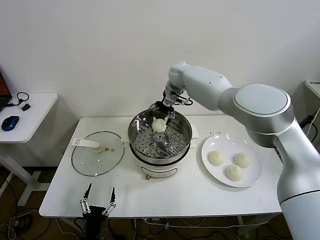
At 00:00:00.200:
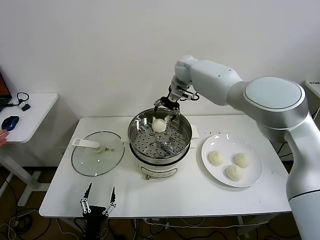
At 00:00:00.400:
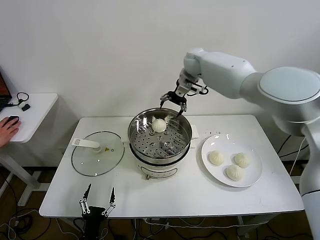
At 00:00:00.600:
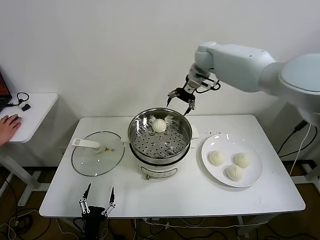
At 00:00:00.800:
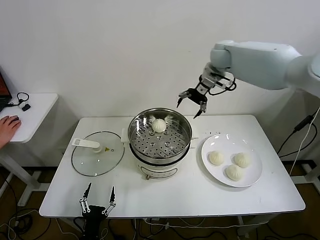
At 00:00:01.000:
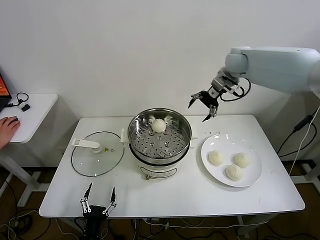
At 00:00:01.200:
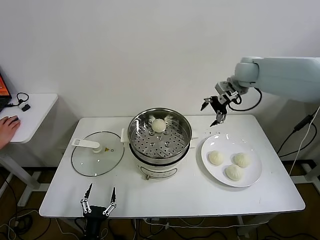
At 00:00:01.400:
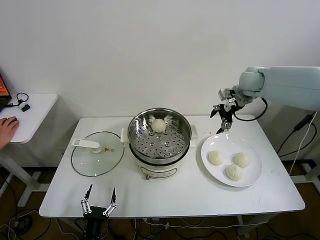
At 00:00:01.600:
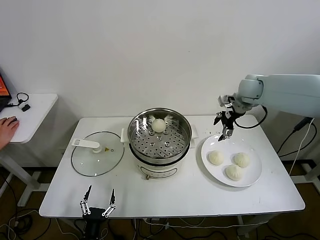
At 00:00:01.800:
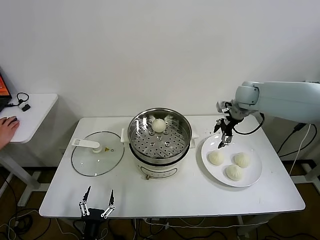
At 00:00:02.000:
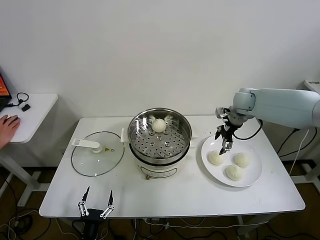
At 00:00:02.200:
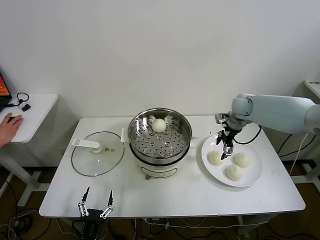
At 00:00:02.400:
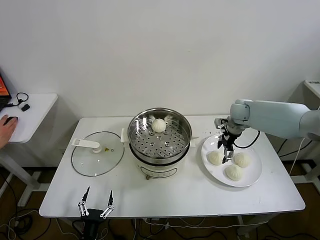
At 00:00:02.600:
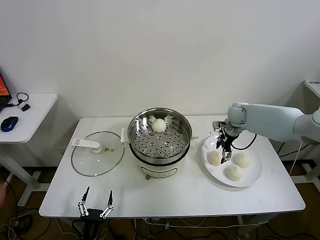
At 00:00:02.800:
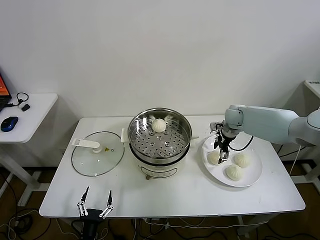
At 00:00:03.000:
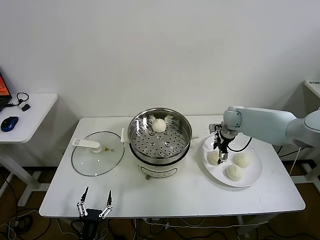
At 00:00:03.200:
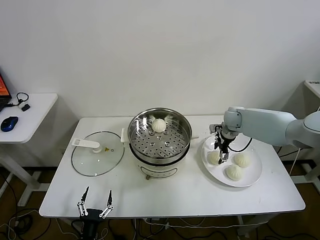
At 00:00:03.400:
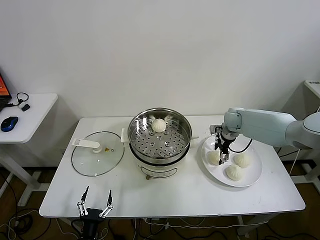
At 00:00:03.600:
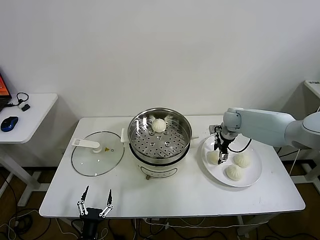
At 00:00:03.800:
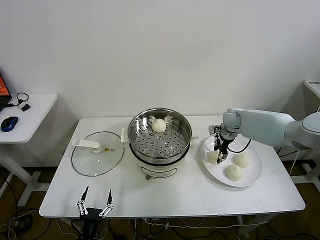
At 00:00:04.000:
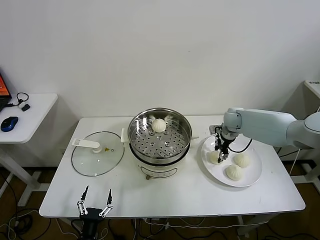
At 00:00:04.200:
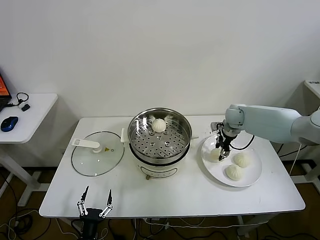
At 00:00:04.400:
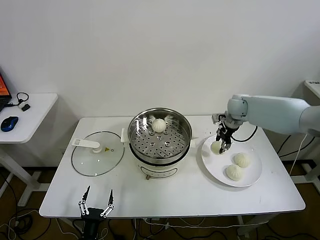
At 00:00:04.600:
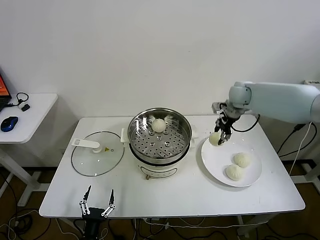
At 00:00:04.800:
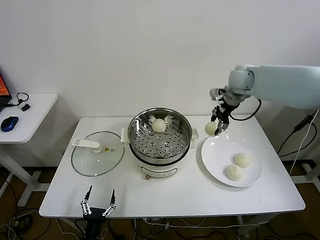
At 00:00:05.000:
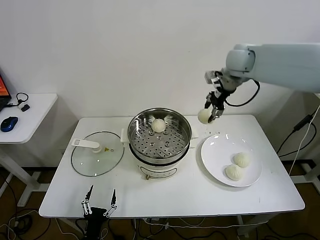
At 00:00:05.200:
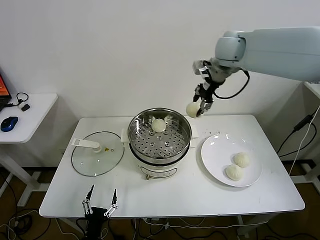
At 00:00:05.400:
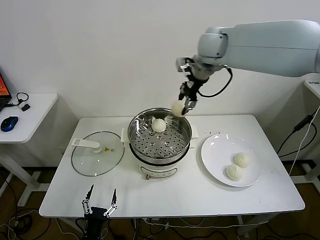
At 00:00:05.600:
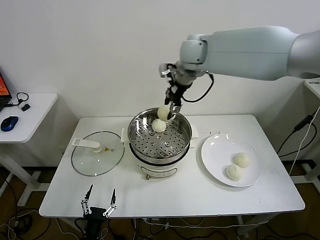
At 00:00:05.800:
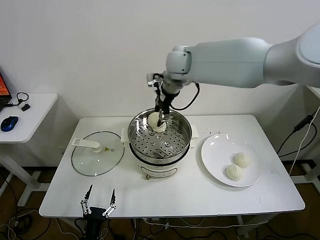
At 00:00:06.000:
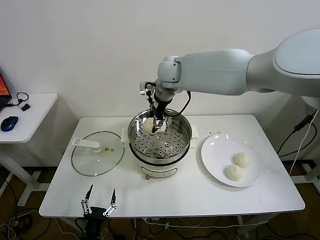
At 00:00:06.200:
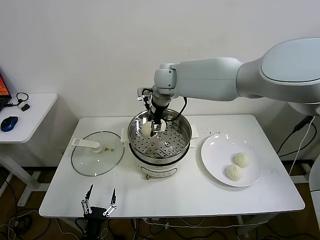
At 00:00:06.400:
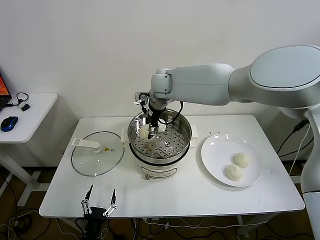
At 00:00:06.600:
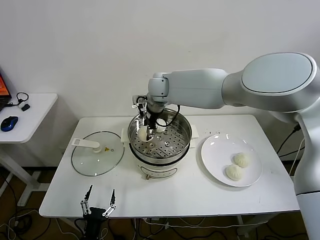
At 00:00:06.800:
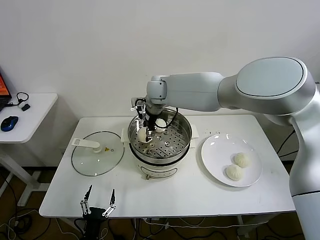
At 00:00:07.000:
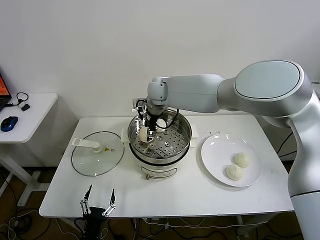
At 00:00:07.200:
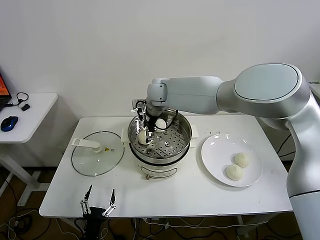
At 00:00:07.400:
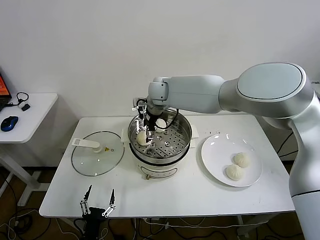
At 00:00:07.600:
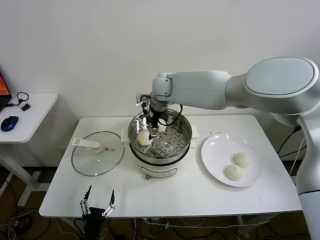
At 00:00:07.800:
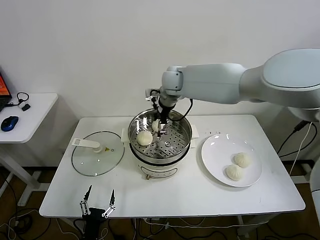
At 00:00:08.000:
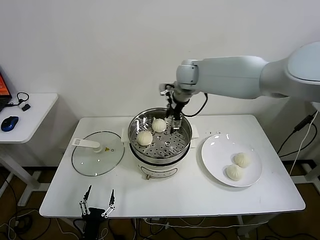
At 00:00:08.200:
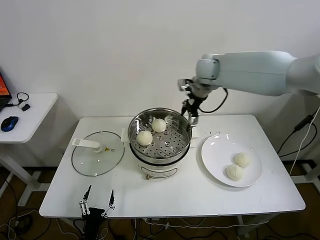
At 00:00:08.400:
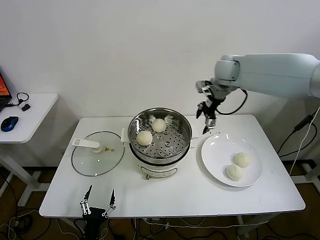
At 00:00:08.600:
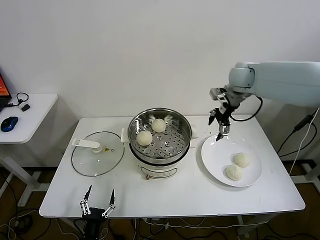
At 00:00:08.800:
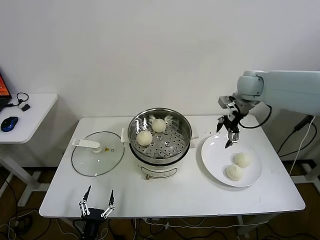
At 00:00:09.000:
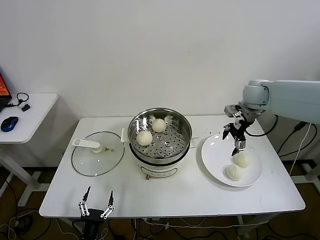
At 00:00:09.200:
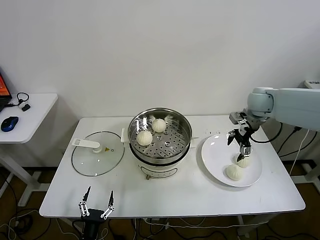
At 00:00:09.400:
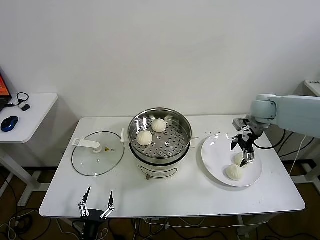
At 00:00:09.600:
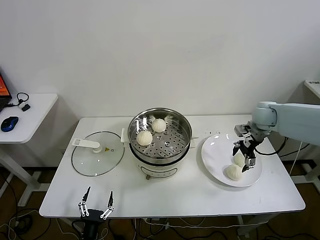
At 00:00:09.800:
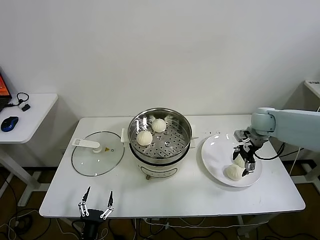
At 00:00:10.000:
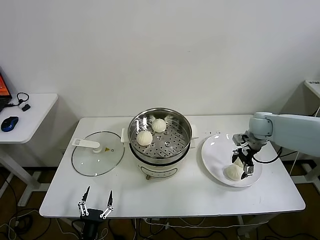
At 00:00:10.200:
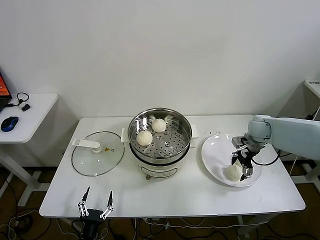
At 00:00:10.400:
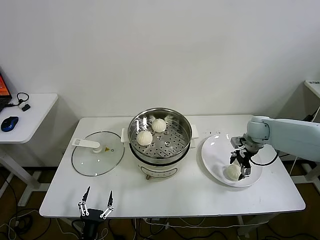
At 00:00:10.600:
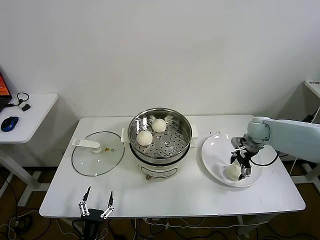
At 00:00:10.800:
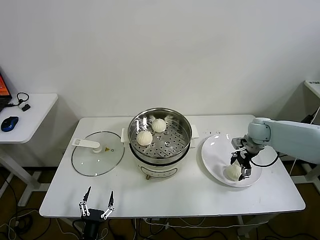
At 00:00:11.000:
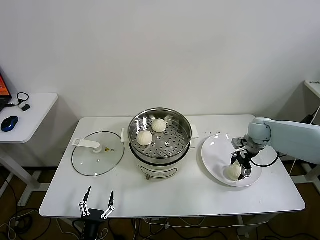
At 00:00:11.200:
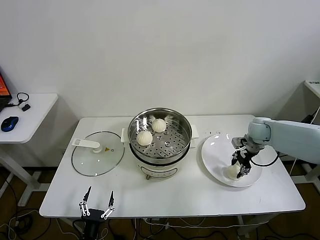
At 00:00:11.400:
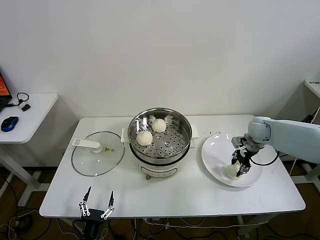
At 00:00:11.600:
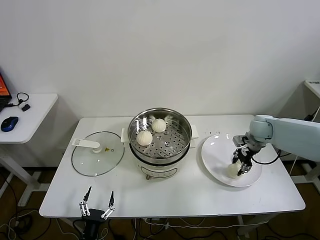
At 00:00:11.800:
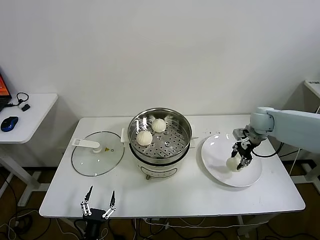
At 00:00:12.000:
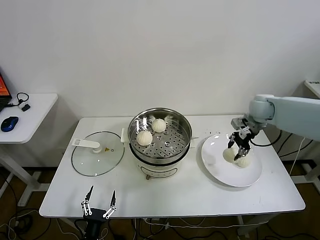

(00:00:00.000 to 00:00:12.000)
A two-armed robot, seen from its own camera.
Task of the whole recording: take steamed baozi put them in steamer.
Step, 00:00:00.000 - 00:00:03.800: Grasp the baozi in the plate with right gripper.
Step, 00:00:04.000 - 00:00:07.400: Place the baozi on the steamer with right gripper.
Step, 00:00:07.600 - 00:00:11.200: Grasp the baozi in the plate with right gripper.
00:00:00.000 - 00:00:01.600: The right gripper goes approximately 25 cm to the right and backward.
00:00:01.600 - 00:00:03.000: The right gripper is displaced downward by some 15 cm.
00:00:03.000 - 00:00:04.400: The right gripper goes about 10 cm upward, and closes up.
00:00:04.400 - 00:00:06.000: The right gripper is displaced to the left and upward by some 30 cm.
00:00:06.000 - 00:00:07.600: The right gripper is displaced downward by some 5 cm, and opens its fingers.
00:00:07.600 - 00:00:09.000: The right gripper shifts approximately 30 cm to the right.
00:00:09.000 - 00:00:10.400: The right gripper is displaced downward by approximately 15 cm.
00:00:10.400 - 00:00:12.000: The right gripper travels upward by some 10 cm, and closes.

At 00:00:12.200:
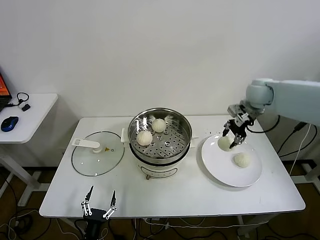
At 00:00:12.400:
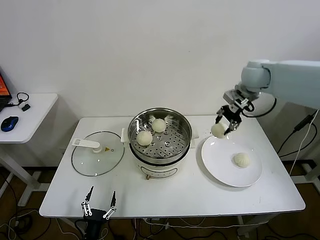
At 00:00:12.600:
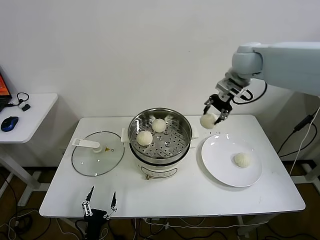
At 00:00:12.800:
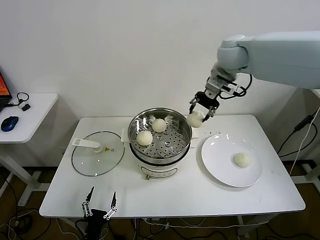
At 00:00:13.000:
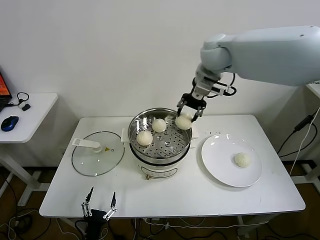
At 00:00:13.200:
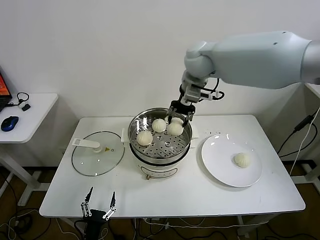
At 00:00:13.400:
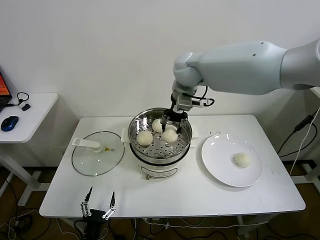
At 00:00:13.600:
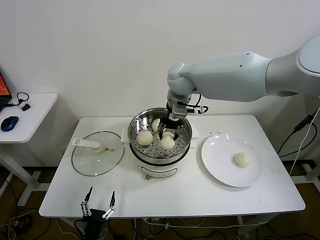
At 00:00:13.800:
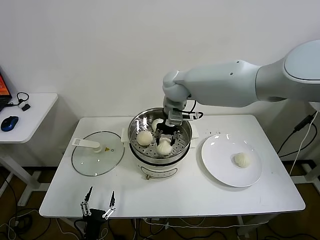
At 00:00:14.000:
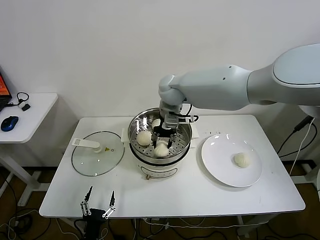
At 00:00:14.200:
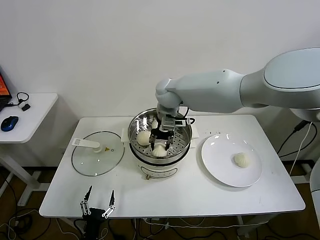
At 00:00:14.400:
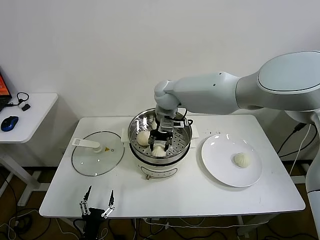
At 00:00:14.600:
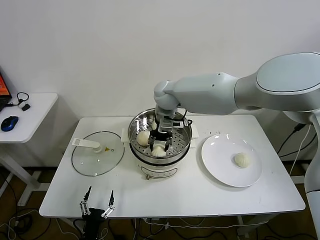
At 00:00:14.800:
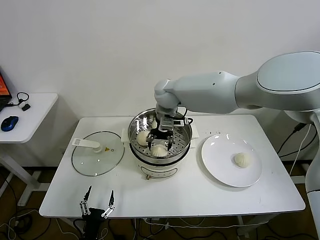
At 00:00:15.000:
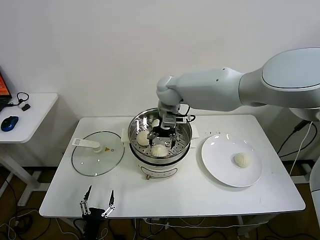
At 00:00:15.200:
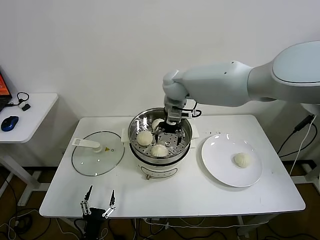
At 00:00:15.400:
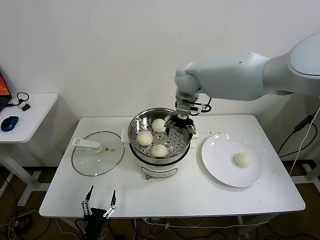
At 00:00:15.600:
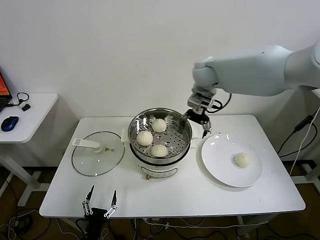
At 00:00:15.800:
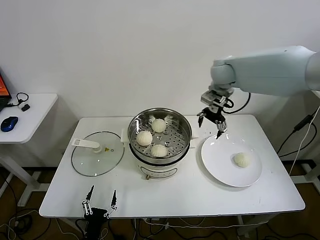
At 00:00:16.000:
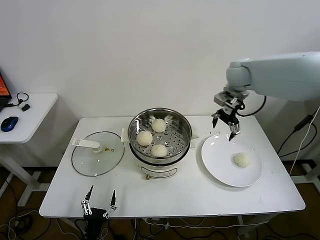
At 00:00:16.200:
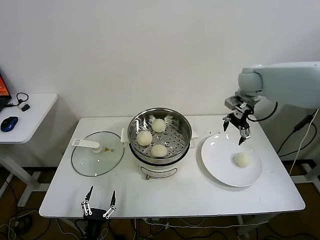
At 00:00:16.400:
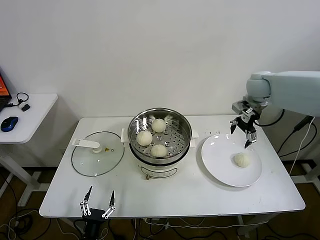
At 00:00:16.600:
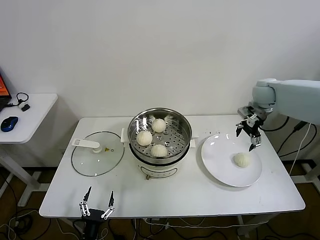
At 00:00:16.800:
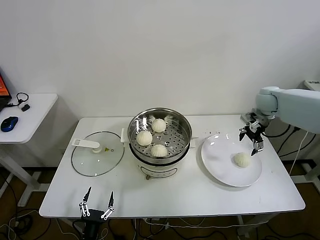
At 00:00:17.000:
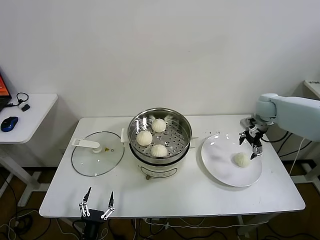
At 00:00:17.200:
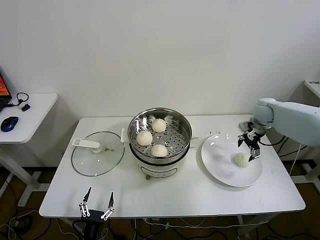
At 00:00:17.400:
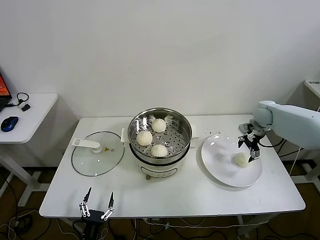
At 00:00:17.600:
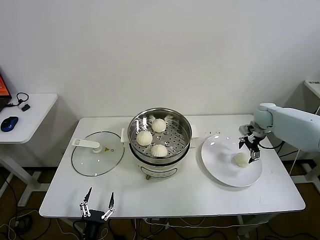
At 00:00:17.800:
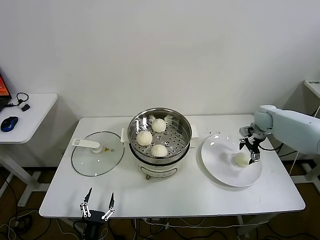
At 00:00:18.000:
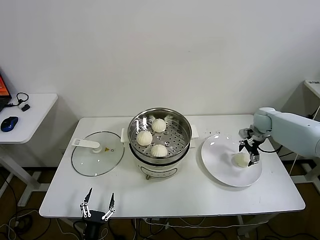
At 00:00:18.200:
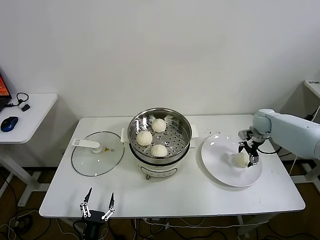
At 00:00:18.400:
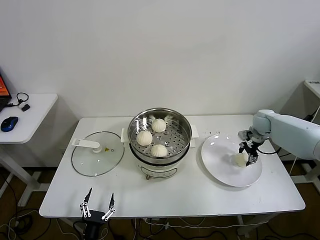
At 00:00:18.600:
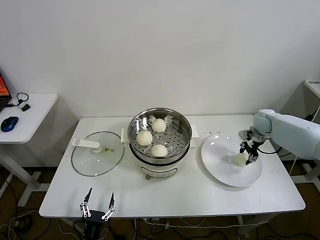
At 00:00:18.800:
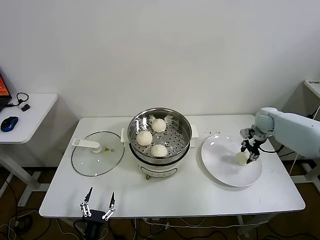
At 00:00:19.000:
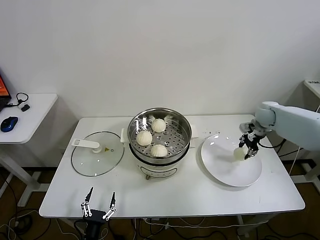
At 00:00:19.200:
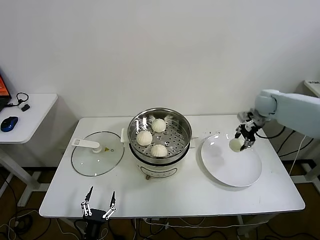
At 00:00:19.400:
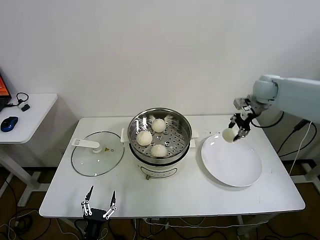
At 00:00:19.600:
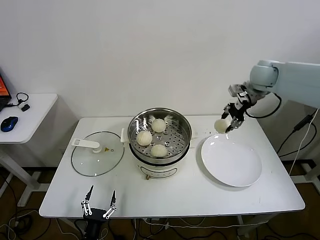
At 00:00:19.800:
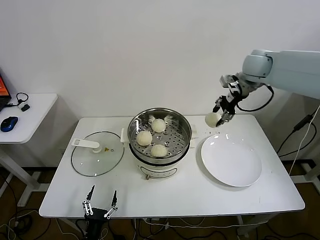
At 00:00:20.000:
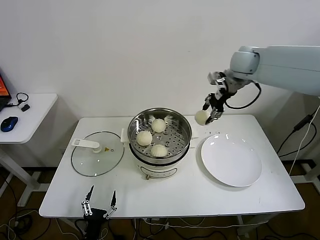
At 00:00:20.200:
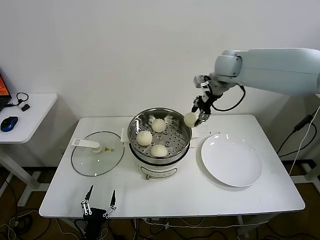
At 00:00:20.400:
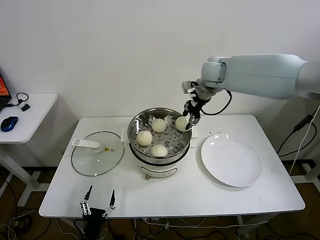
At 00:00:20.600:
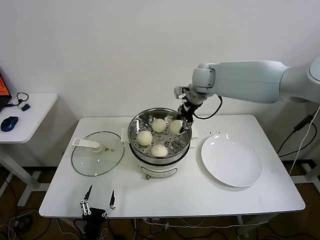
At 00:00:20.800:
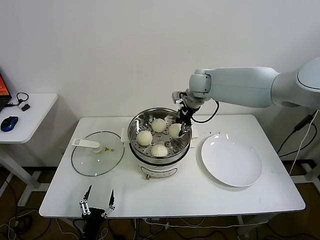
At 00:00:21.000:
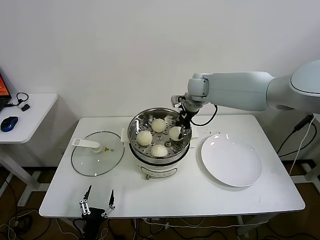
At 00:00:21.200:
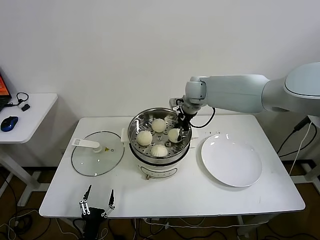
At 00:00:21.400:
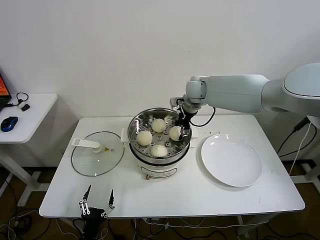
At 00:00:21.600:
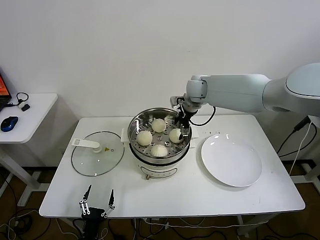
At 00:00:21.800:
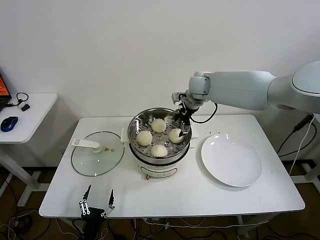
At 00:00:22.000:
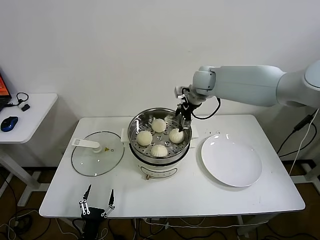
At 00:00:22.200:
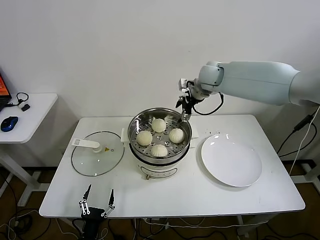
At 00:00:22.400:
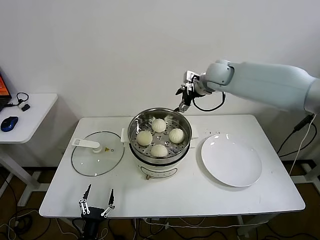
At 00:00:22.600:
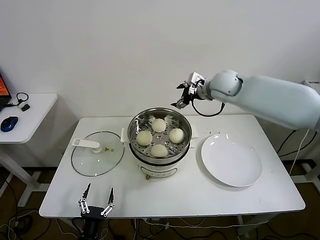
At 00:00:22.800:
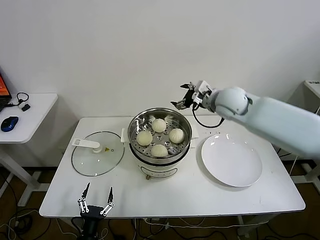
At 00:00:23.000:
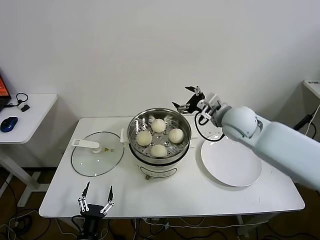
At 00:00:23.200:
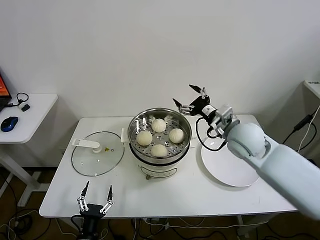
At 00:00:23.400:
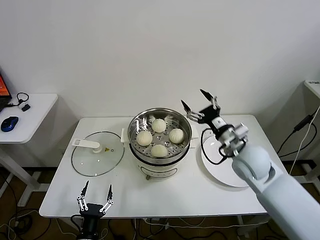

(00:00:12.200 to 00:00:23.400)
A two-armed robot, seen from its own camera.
Task of the whole recording: take steamed baozi put them in steamer.
Step, 00:00:12.200 - 00:00:14.800: Place the baozi on the steamer with right gripper.
Step, 00:00:15.000 - 00:00:18.600: Grasp the baozi in the plate with right gripper.
Step, 00:00:18.800 - 00:00:21.600: Place the baozi on the steamer with right gripper.
00:00:12.200 - 00:00:13.800: The right gripper moves to the left, about 30 cm.
00:00:13.800 - 00:00:15.400: The right gripper opens its fingers.
00:00:15.400 - 00:00:17.000: The right gripper moves to the right, roughly 30 cm.
00:00:17.000 - 00:00:18.600: The right gripper is displaced downward by some 10 cm, and closes up.
00:00:18.600 - 00:00:20.200: The right gripper moves upward and to the left, some 30 cm.
00:00:20.200 - 00:00:21.800: The right gripper moves downward and to the left, roughly 10 cm, and opens its fingers.
00:00:21.800 - 00:00:23.400: The right gripper travels backward and to the right by some 25 cm.
